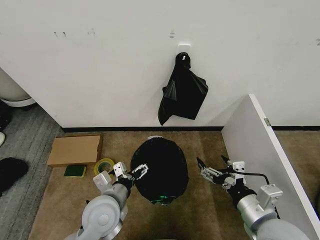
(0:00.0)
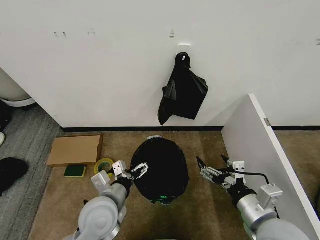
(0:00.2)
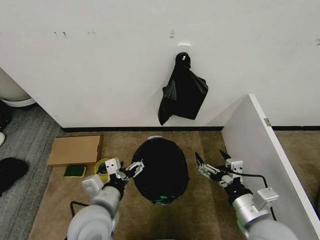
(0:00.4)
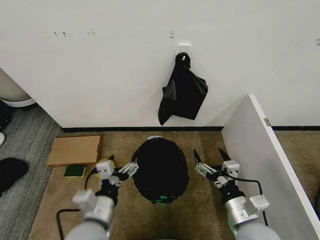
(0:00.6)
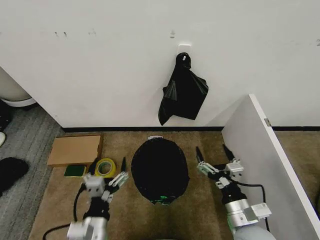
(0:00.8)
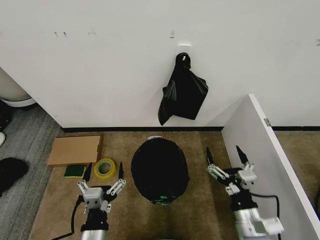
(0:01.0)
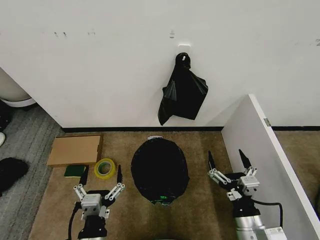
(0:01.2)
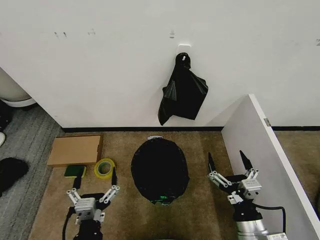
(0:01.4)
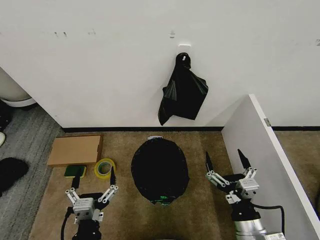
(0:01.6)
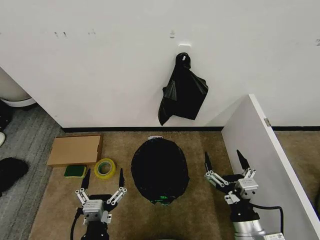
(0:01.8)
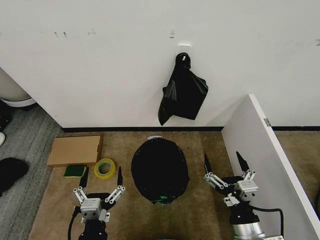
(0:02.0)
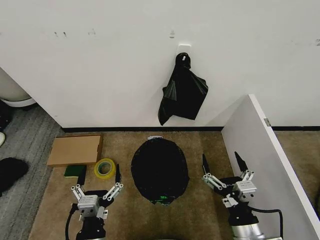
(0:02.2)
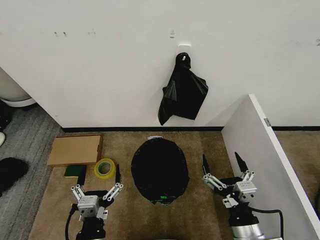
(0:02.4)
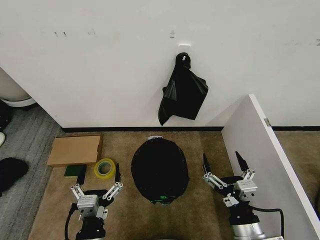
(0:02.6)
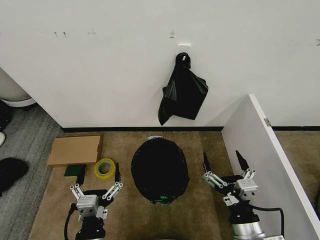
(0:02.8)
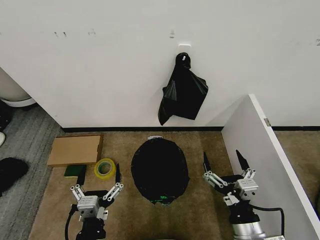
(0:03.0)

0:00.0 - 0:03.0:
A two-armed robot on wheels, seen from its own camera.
Task of the whole recording: Place the garbage bag over the trash bin.
0:00.0 - 0:01.6: The left gripper is displaced backward by approximately 15 cm. The right gripper heads downward, covering some 5 cm.
0:01.6 - 0:03.0: There are only small adjustments of the grippers.

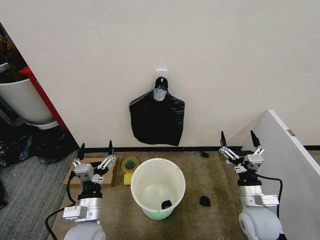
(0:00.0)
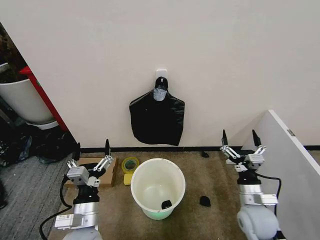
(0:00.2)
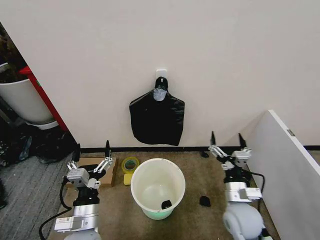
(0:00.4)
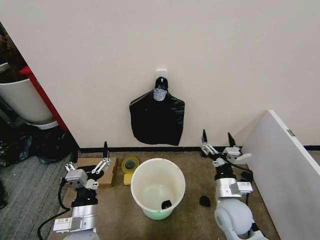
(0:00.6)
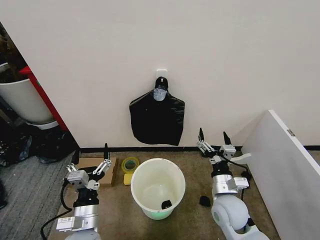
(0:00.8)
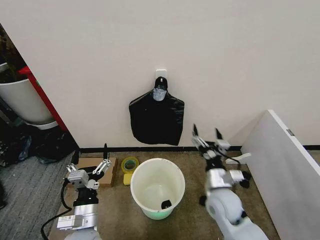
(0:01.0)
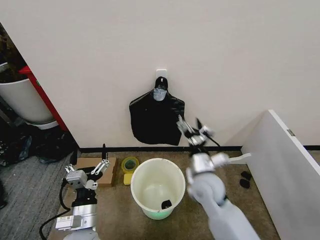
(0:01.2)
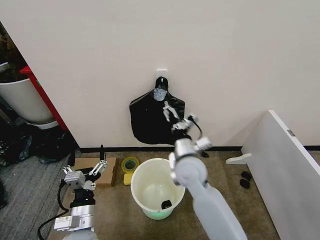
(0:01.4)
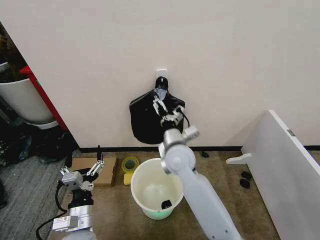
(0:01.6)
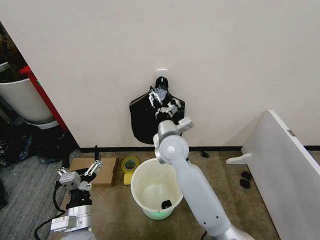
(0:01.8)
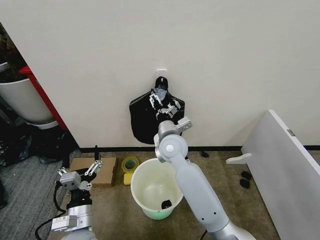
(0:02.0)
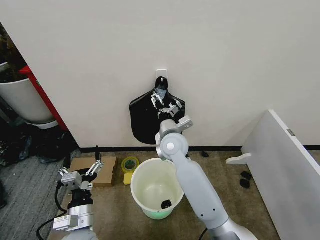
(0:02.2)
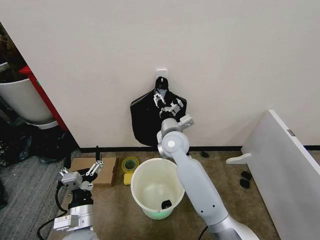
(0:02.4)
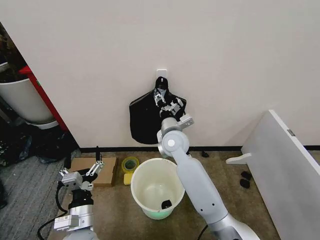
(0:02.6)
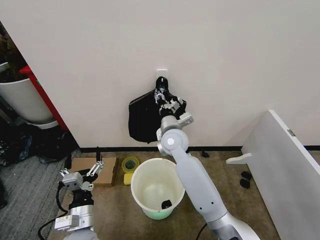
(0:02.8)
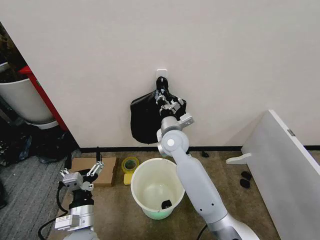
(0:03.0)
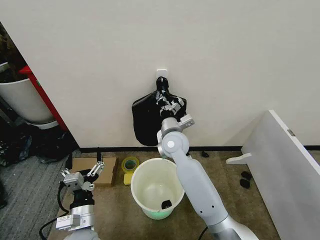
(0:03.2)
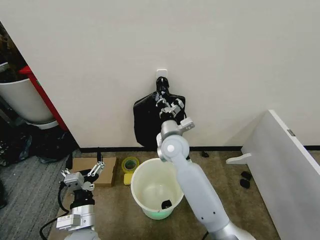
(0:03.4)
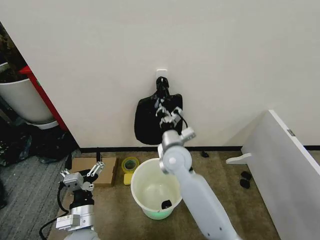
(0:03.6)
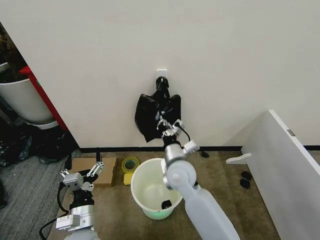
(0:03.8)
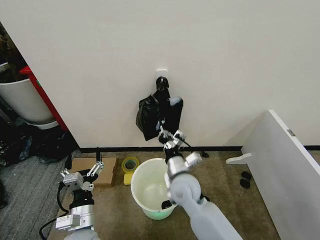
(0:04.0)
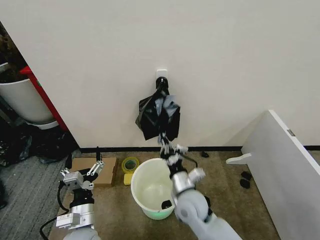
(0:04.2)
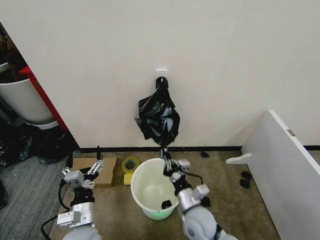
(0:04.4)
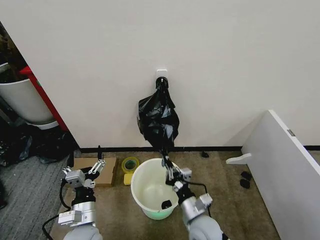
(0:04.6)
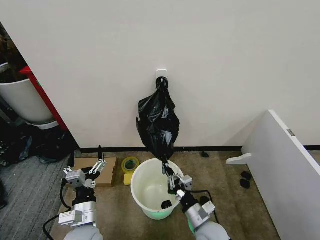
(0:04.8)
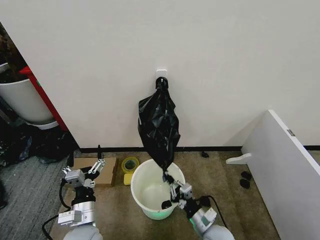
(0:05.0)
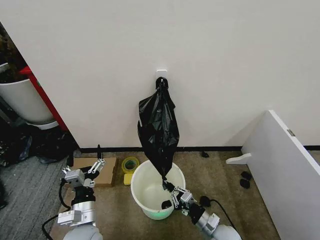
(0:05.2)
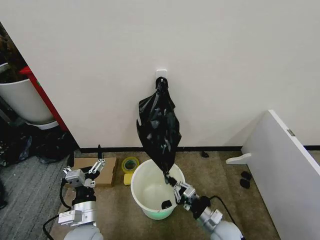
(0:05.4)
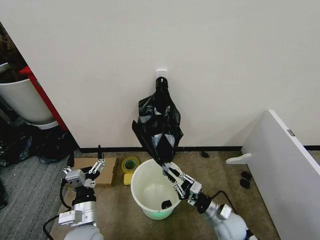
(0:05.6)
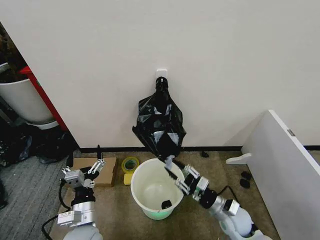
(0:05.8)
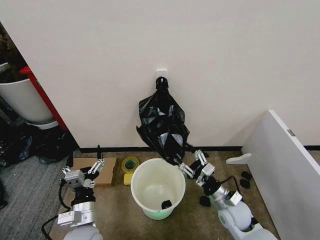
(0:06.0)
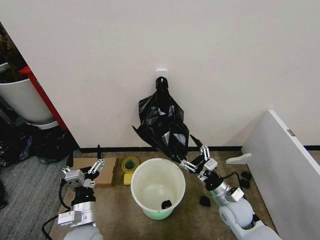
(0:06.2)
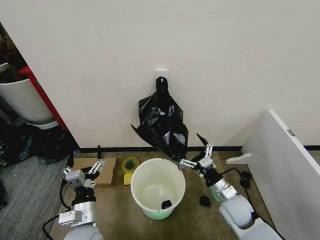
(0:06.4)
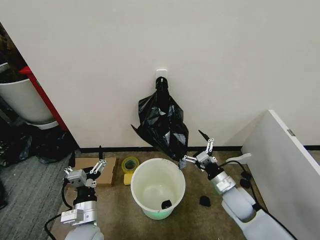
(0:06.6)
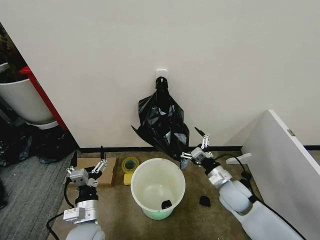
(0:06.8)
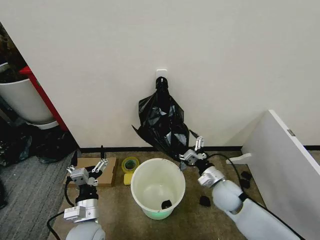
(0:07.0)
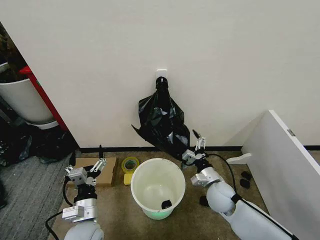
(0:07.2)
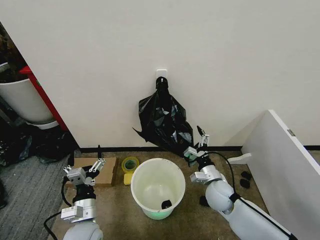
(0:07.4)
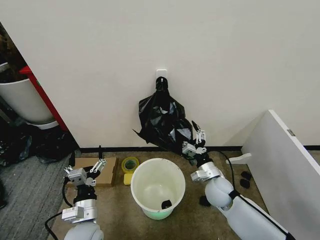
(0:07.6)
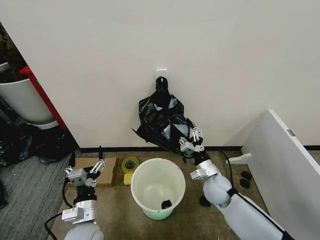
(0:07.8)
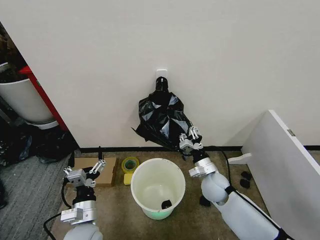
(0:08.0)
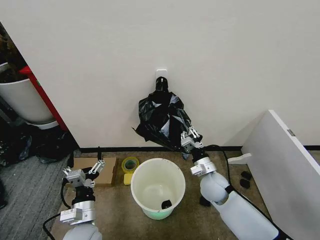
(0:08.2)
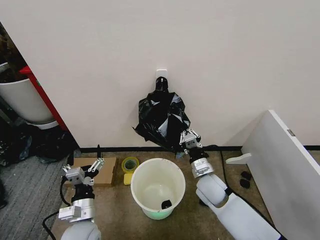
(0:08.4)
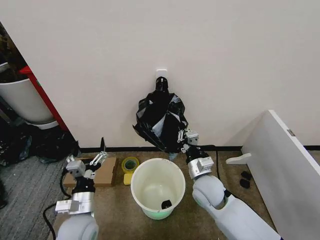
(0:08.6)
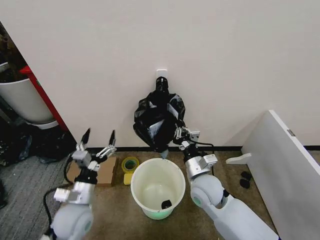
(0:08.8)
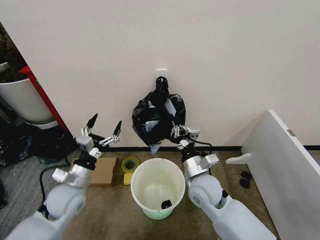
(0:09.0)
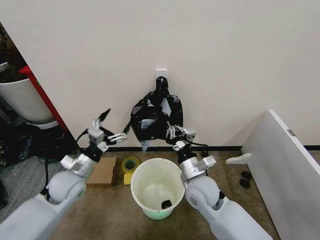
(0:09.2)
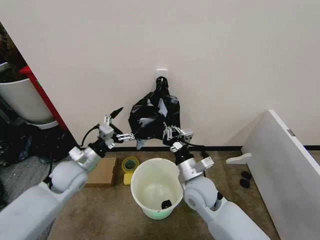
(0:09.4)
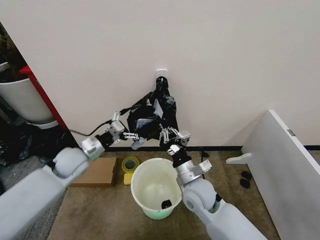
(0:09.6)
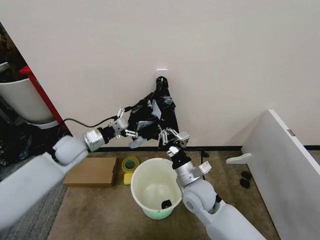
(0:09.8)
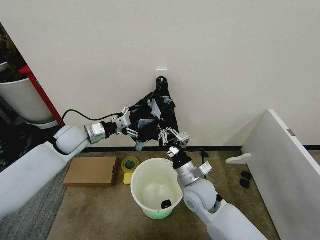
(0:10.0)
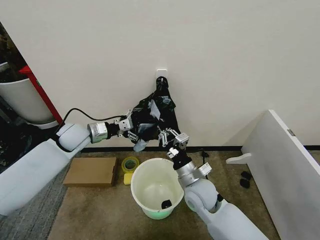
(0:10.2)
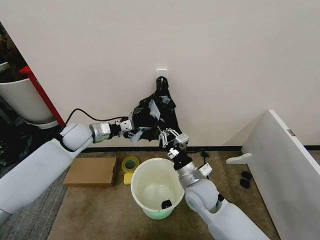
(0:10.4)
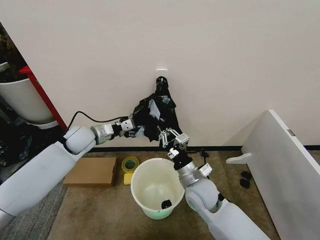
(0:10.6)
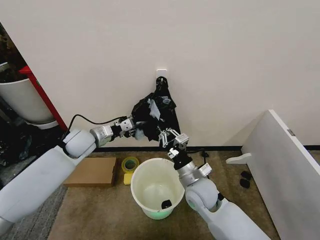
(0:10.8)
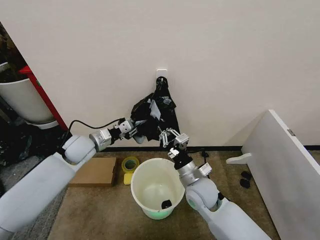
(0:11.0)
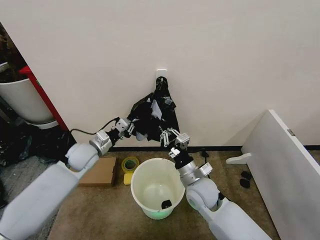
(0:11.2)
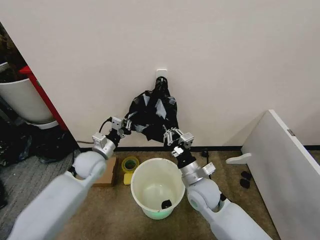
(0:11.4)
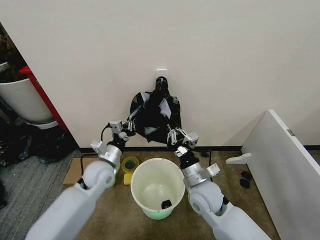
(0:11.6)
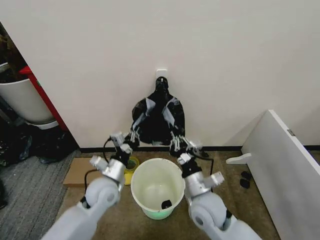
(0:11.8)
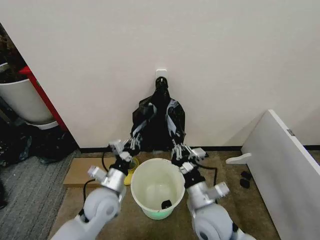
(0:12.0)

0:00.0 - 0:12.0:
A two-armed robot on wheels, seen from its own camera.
Task of the whole recording: Place the garbage bag over the trash bin.
0:01.6 - 0:03.0: The right gripper travels forward by approximately 5 cm, and closes.
0:03.0 - 0:04.4: The right gripper goes about 25 cm backward and downward.
0:04.4 - 0:06.0: The right gripper travels to the right by approximately 15 cm, and opens.
0:06.0 - 0:07.6: The right gripper heads forward, covering approximately 5 cm.
0:07.6 - 0:09.0: The left gripper travels forward, to the left and upward by about 10 cm; the right gripper heads upward and to the left, covering some 10 cm, and closes up.
0:09.0 - 0:10.4: The left gripper travels forward and upward by roughly 20 cm.
0:10.4 - 0:12.0: The left gripper is displaced backward, to the right and downward by roughly 25 cm, and closes up. Meanwhile the right gripper goes about 10 cm backward.

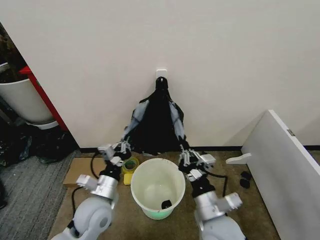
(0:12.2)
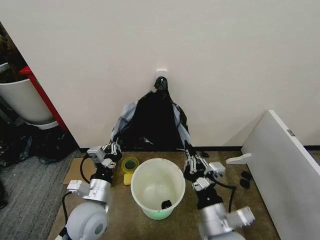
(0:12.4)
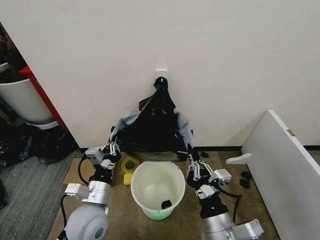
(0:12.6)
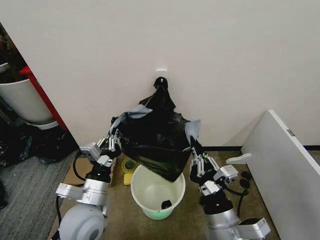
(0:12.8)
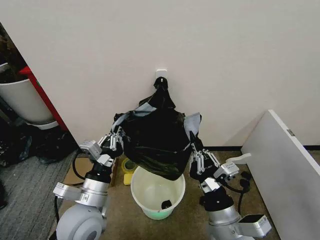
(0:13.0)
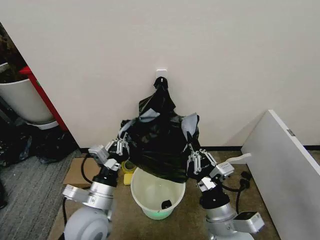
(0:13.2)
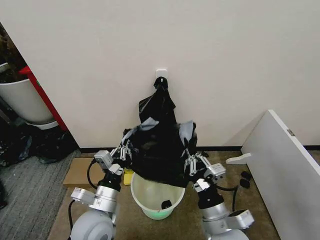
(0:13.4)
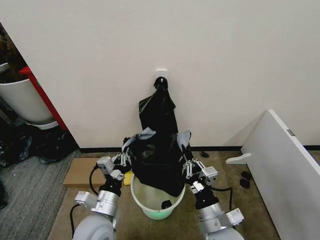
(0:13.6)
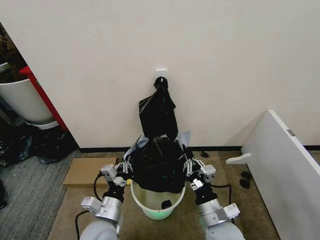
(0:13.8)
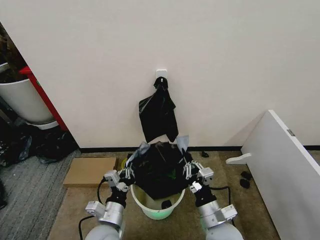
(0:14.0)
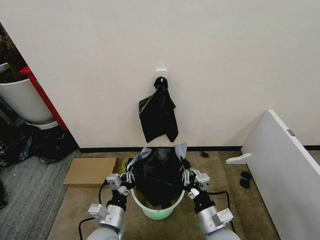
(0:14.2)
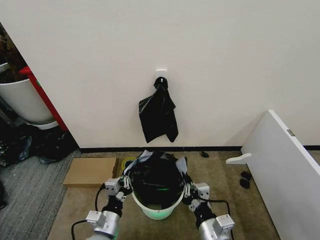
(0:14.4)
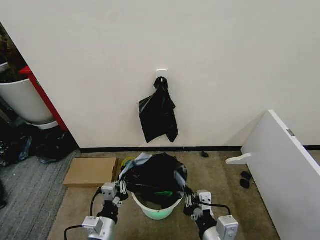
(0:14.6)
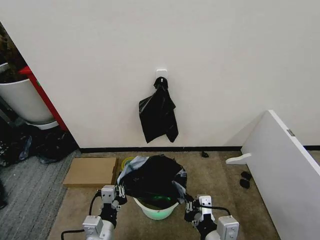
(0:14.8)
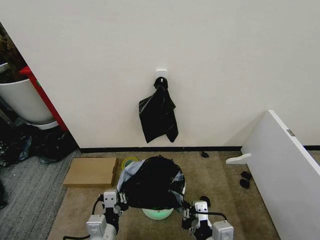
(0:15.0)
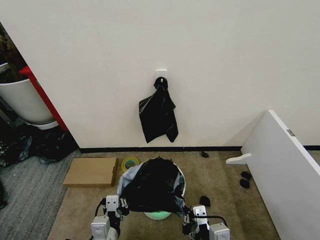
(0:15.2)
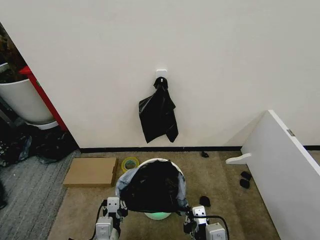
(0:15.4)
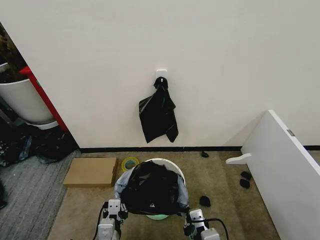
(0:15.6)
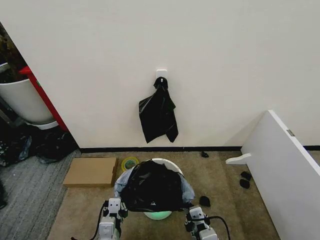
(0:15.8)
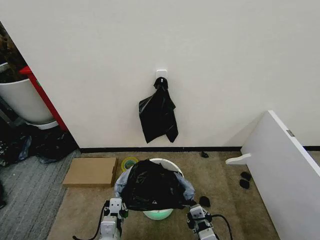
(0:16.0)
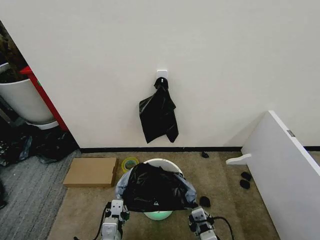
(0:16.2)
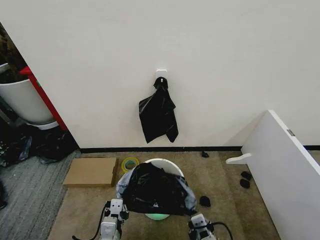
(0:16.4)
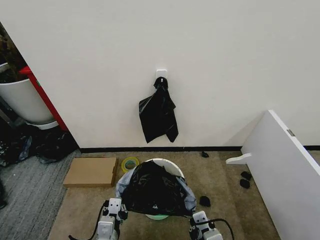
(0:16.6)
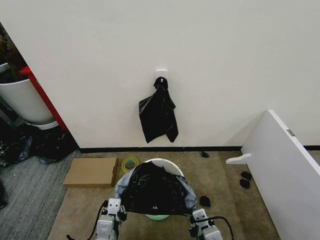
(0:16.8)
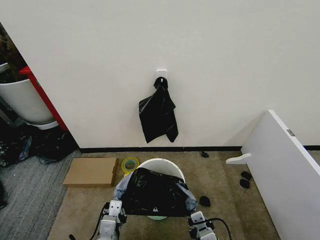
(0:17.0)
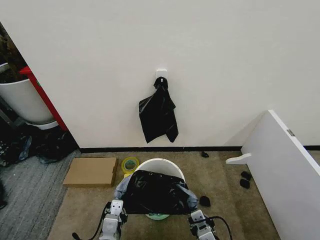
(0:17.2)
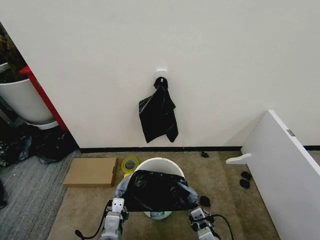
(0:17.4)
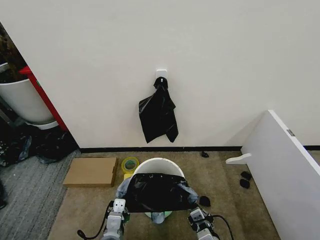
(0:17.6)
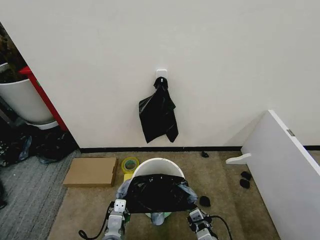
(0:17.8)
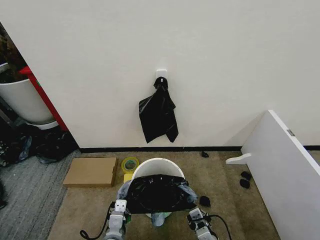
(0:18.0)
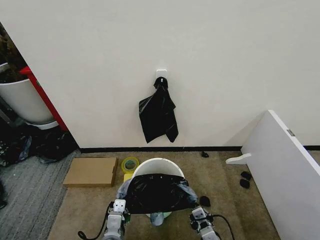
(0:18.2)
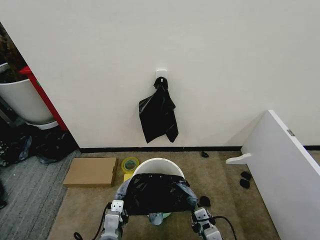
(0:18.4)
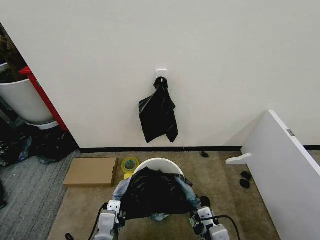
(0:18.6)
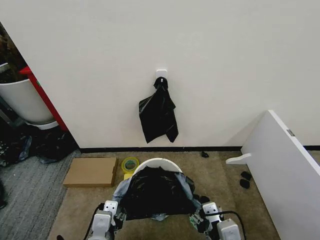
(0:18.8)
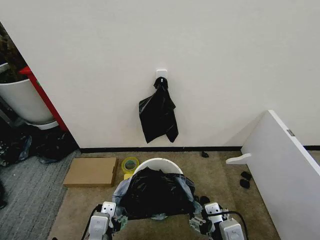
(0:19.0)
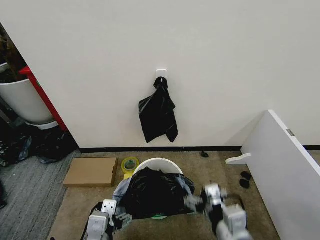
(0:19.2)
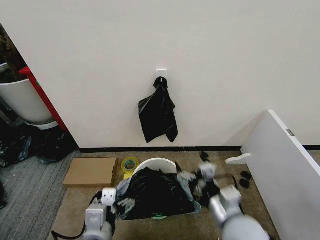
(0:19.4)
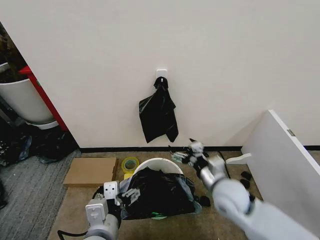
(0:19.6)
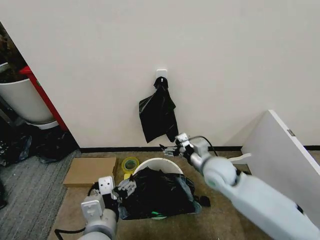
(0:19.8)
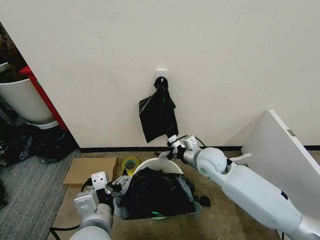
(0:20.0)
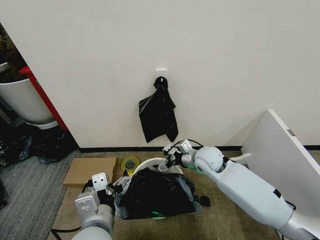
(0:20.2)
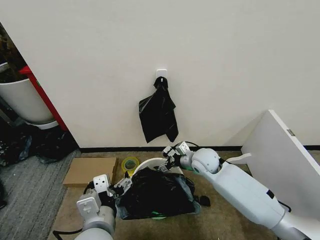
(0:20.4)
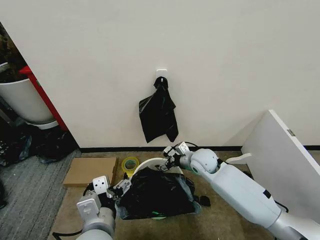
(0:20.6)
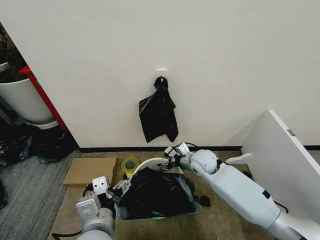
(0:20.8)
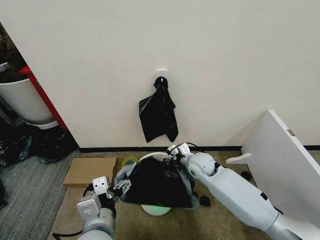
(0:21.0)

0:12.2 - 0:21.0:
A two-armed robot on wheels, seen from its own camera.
Task of the whole recording: Place the garbage bag over the trash bin.
0:13.6 - 0:15.2: Both grippers travel together backward, some 10 cm.
0:16.6 - 0:18.0: The right gripper is displaced downward by roughly 10 cm.
0:18.0 - 0:19.6: The right gripper is displaced forward and upward by approximately 20 cm, and opens up, while the left gripper moves upward, roughly 15 cm, and opens up.
0:19.6 - 0:21.0: The right gripper shifts approximately 15 cm forward, and closes up.
